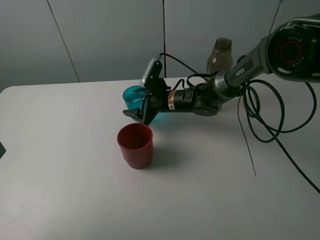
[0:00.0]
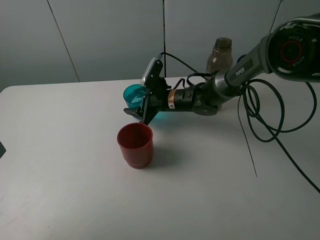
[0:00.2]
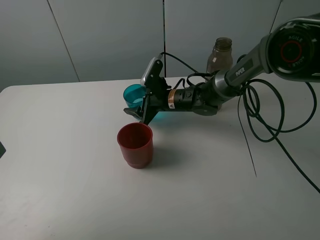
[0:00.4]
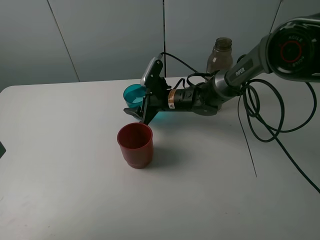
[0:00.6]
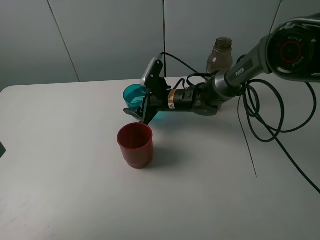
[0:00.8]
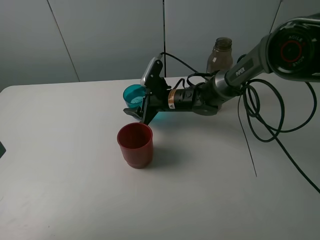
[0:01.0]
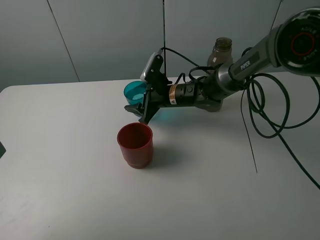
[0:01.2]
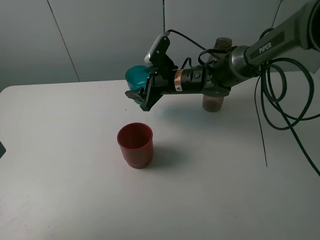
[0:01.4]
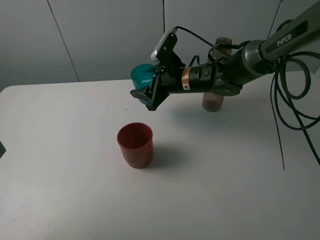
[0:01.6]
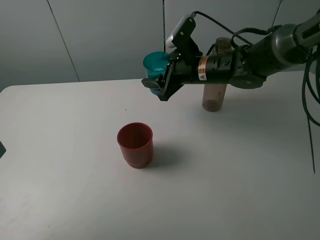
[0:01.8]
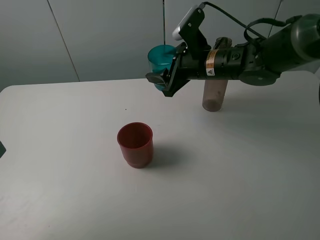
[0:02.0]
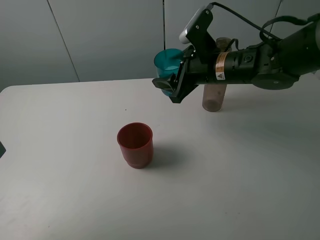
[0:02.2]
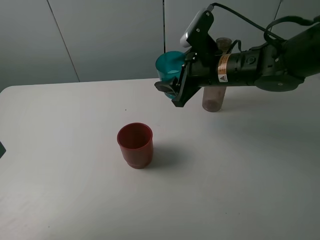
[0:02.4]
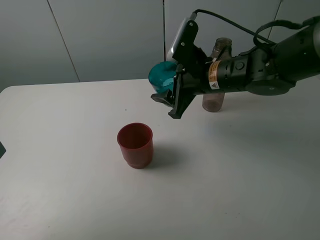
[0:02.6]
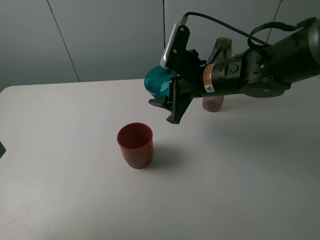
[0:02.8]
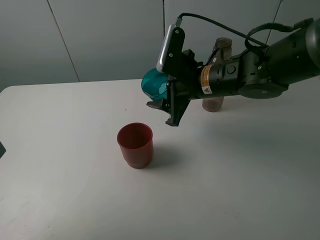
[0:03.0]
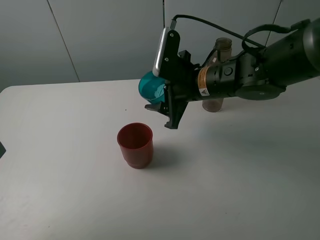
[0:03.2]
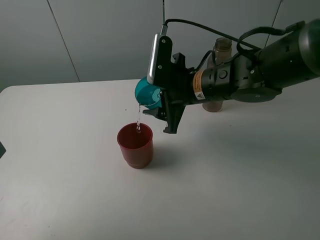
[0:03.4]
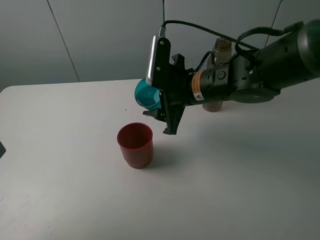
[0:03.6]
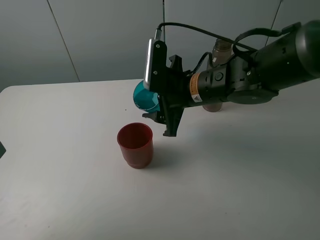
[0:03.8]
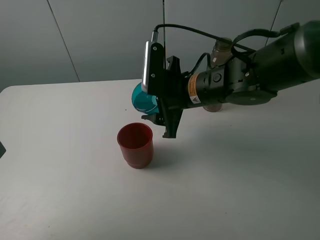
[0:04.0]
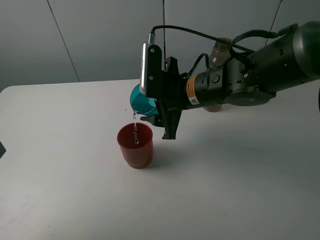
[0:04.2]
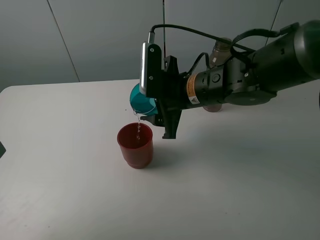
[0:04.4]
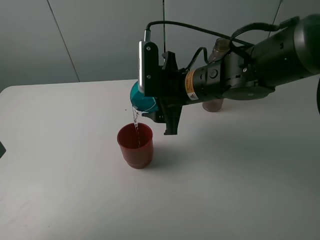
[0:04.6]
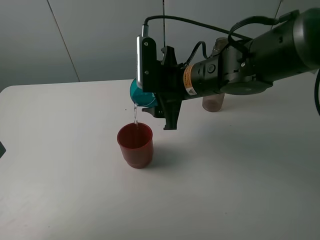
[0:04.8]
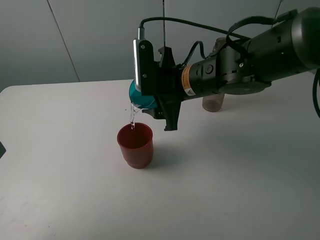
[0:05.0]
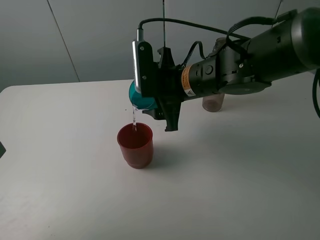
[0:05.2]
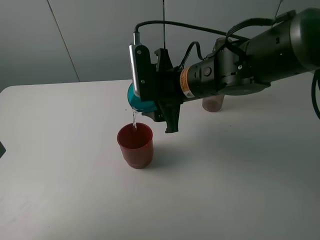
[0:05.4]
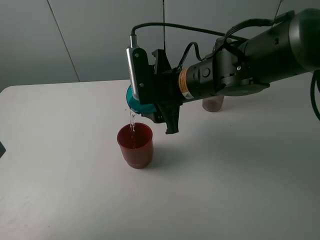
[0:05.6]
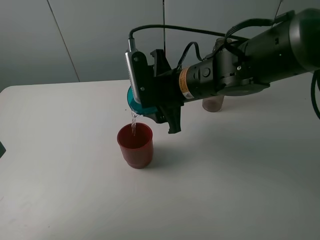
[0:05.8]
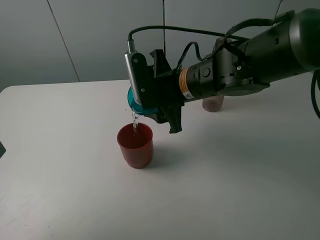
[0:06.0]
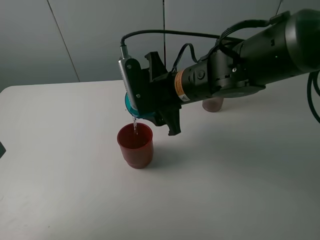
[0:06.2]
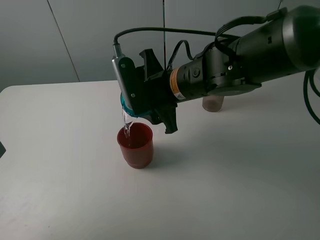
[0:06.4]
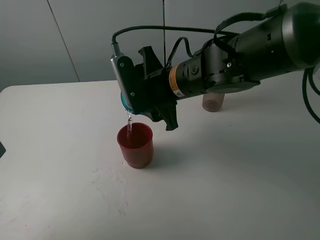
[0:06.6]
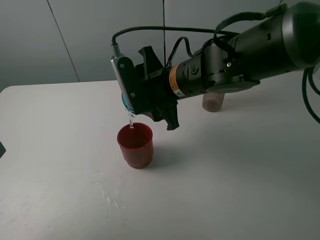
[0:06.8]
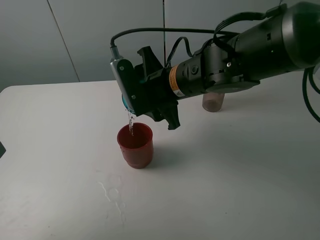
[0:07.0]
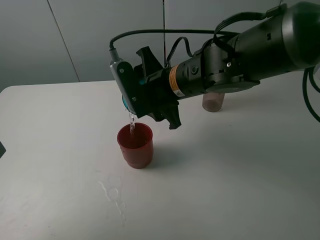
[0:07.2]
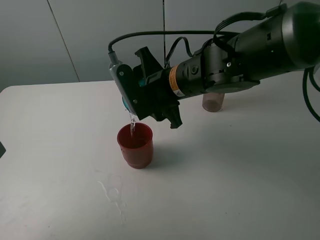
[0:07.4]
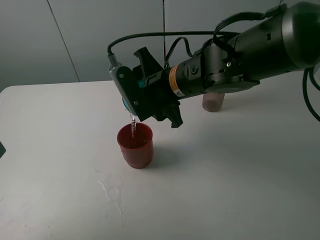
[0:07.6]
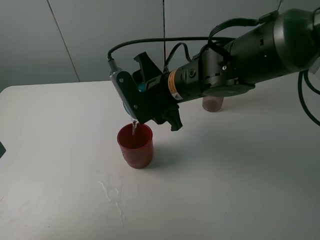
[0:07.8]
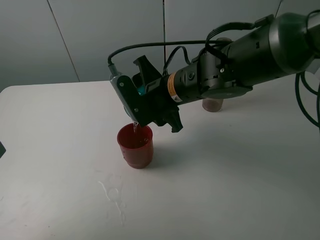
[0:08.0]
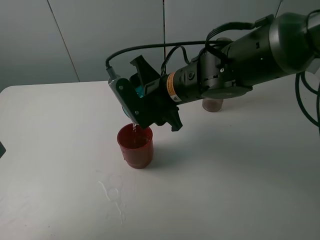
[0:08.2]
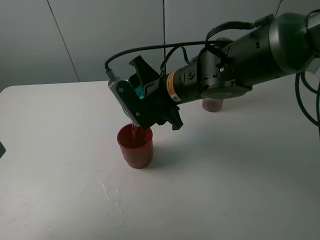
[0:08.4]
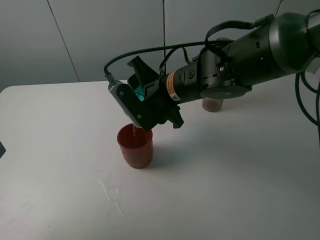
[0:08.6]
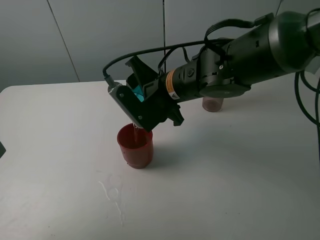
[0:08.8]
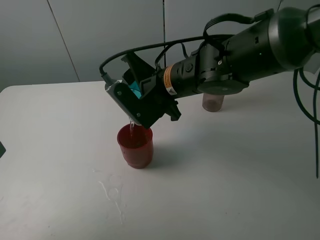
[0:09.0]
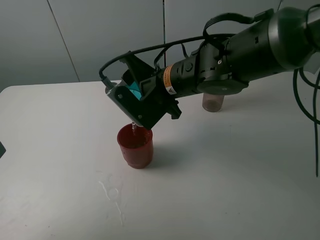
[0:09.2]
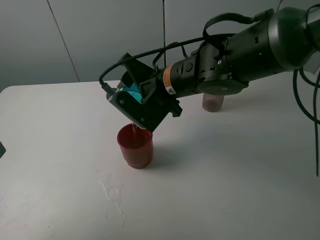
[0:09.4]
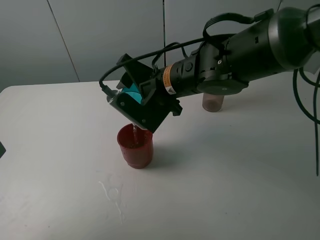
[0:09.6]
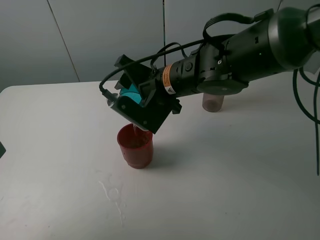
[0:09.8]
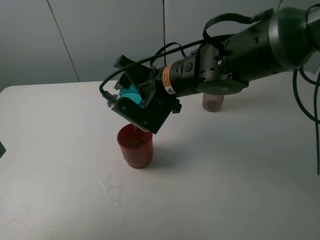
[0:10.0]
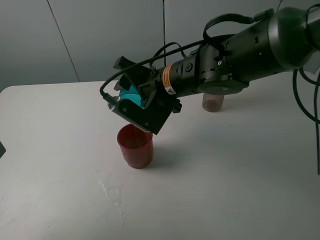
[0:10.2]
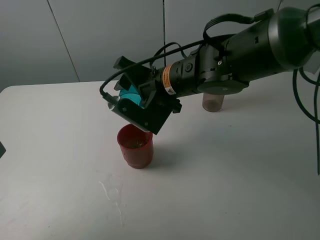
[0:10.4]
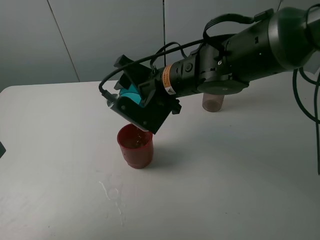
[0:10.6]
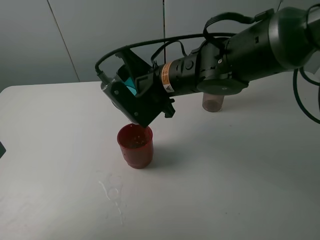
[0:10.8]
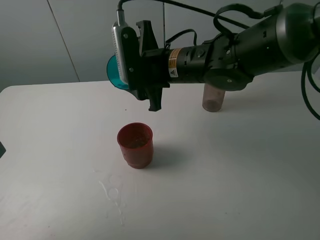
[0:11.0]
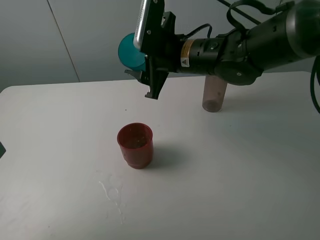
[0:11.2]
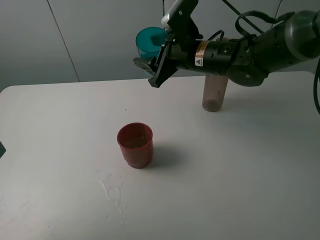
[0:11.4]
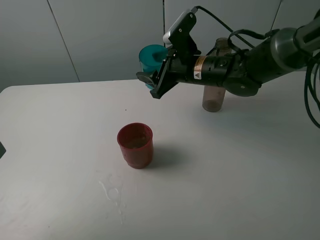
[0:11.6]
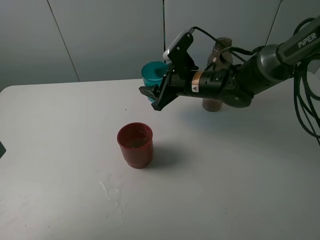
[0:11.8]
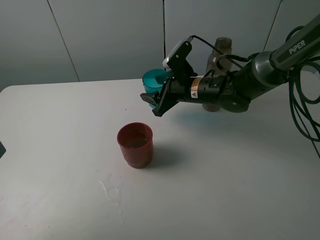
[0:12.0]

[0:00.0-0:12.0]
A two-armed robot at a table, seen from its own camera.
Task of the whole recording: pick up the bottle and pour water into the cup, then pick up the cup containing water and pour it into another cup.
Step, 0.2 to 10.8 s: Pour water from blue cup to red cup with the right gripper.
0.0 to 1.6 s: The right gripper heads upward, covering approximately 10 cm.
1.6 to 3.0 s: The right gripper travels backward by approximately 10 cm.
3.0 to 4.4 s: There are only small adjustments of the grippers.
4.4 to 6.0 s: The grippers move only a little.
6.0 to 7.6 s: The grippers move only a little.
7.6 to 9.0 s: There are only small adjustments of the grippers.
9.0 to 10.4 s: The grippers make only small movements.
10.4 to 12.0 s: The right gripper moves downward, forward and to the right, roughly 10 cm.

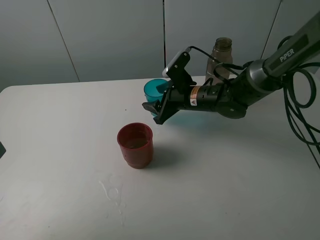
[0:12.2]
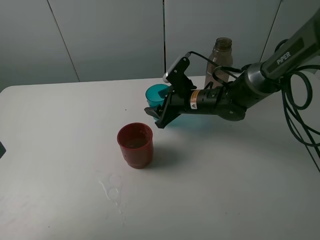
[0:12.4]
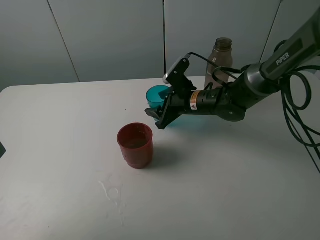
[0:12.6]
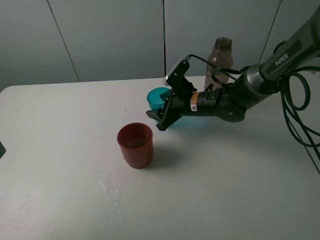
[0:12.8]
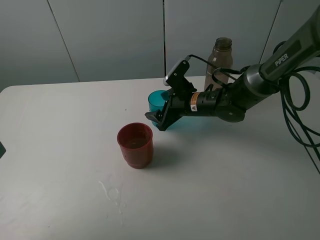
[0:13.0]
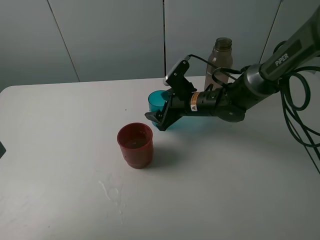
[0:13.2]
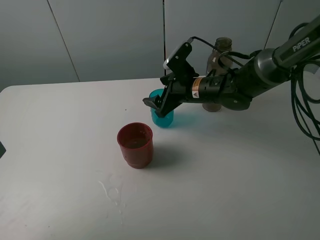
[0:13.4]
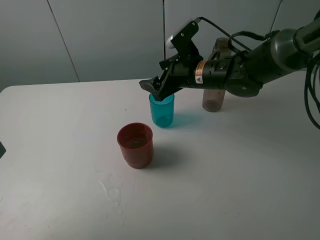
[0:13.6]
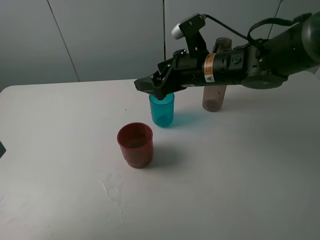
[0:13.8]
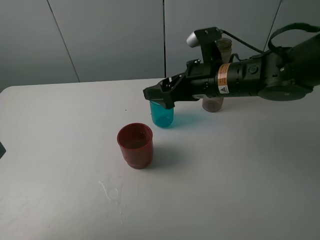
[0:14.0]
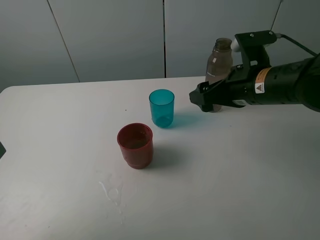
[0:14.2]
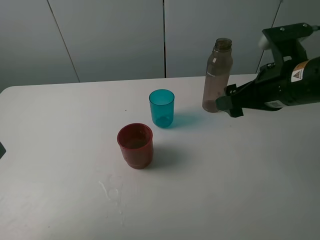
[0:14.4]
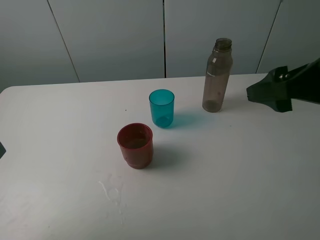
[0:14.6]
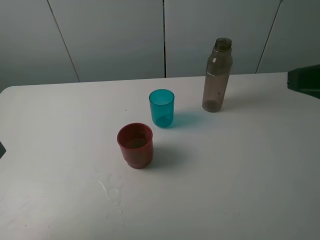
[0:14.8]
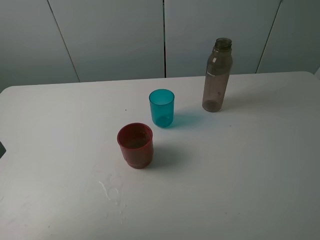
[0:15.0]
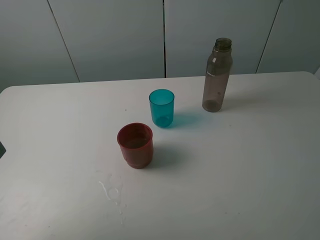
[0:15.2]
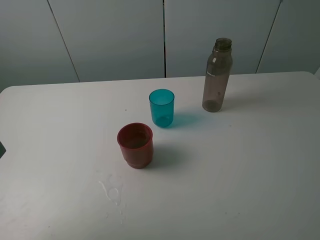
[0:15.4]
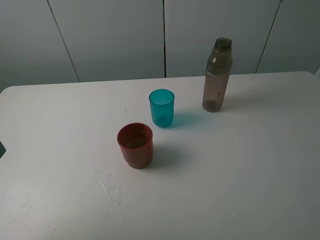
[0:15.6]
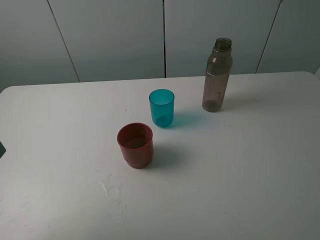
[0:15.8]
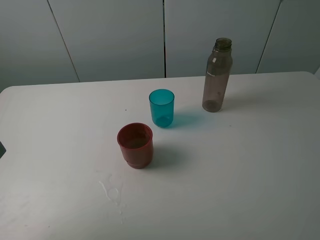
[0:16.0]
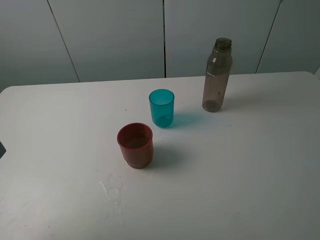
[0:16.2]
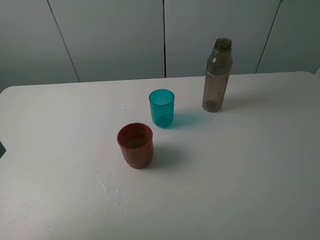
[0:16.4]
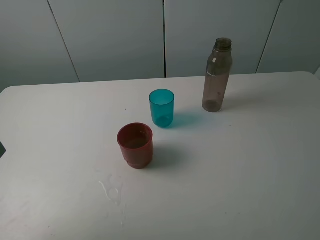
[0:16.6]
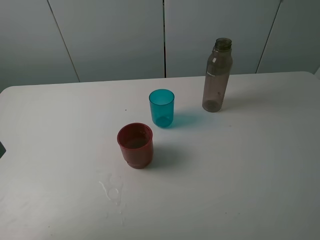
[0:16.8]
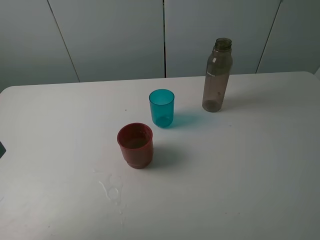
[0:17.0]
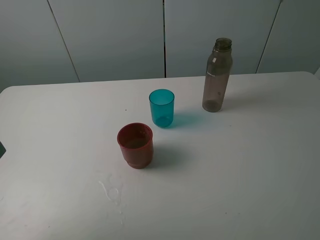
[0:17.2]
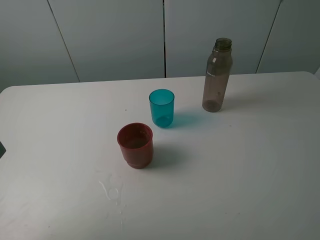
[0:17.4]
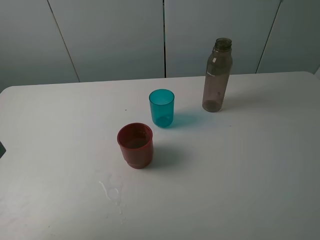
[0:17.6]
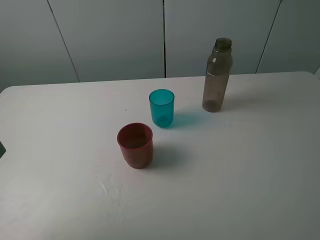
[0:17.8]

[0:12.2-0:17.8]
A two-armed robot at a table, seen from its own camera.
Task of the whole recording: pick up the bottle and pour water into the cup, then pick up the cup containing water and pour it into another cup.
12.2 to 13.6 s: The right gripper moves upward, roughly 5 cm, and opens its fingers.
13.6 to 15.0 s: The right gripper shifts roughly 40 cm backward, to the right and upward, and opens.

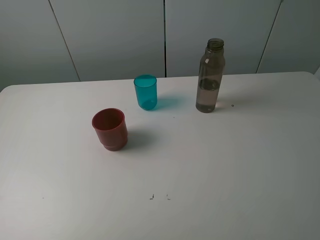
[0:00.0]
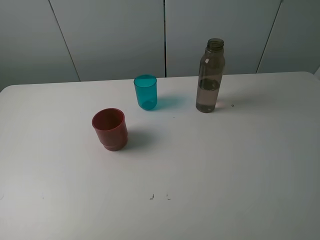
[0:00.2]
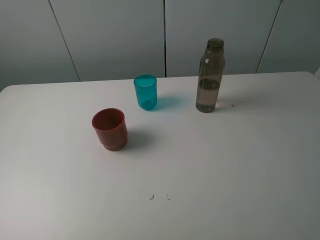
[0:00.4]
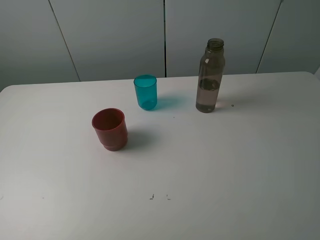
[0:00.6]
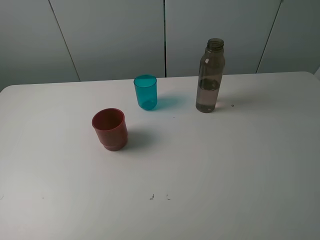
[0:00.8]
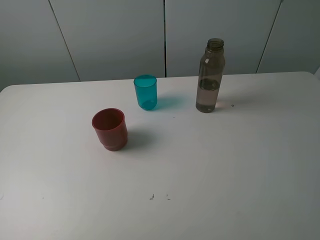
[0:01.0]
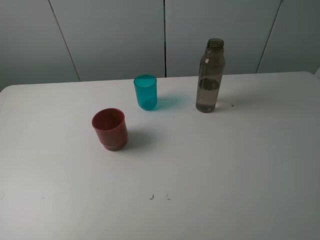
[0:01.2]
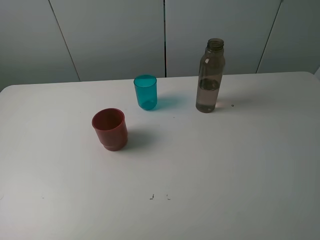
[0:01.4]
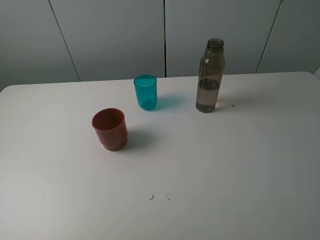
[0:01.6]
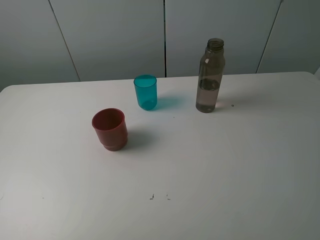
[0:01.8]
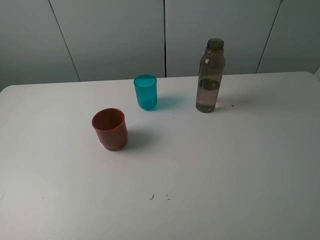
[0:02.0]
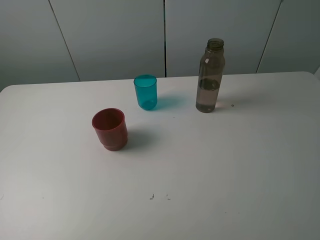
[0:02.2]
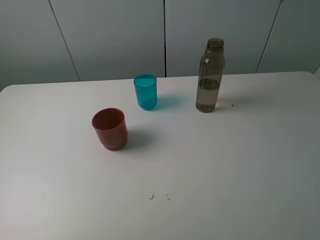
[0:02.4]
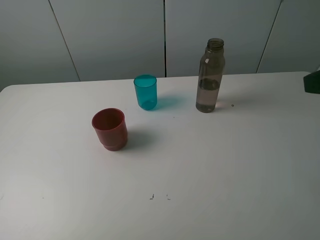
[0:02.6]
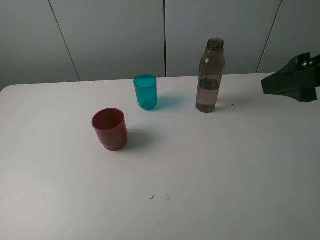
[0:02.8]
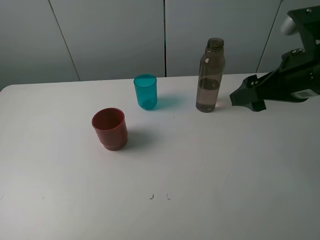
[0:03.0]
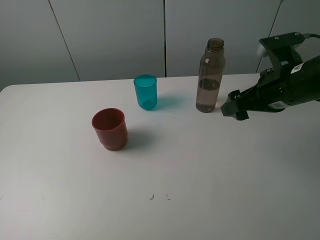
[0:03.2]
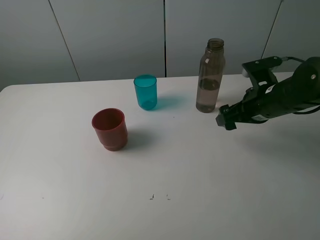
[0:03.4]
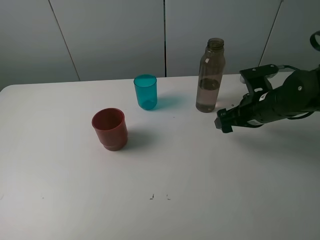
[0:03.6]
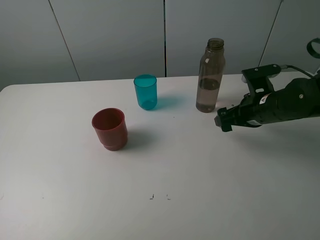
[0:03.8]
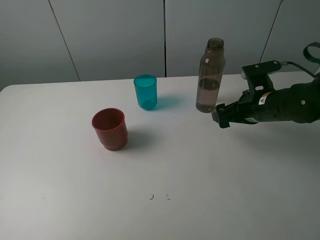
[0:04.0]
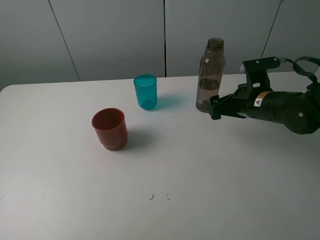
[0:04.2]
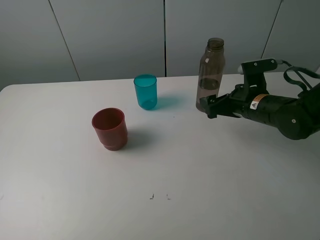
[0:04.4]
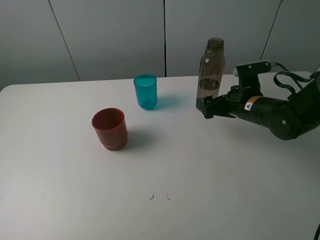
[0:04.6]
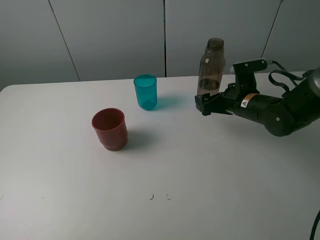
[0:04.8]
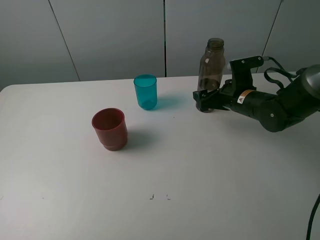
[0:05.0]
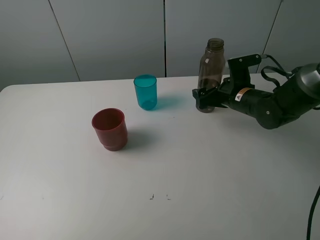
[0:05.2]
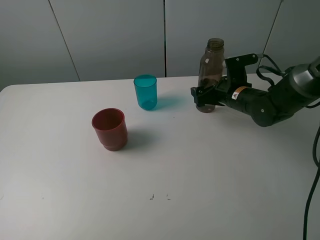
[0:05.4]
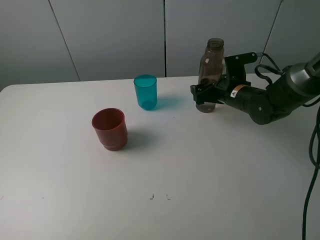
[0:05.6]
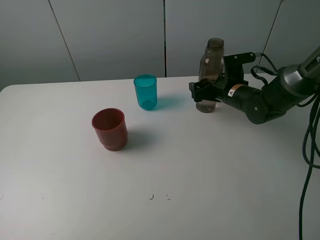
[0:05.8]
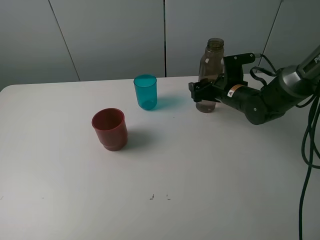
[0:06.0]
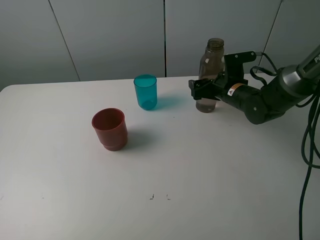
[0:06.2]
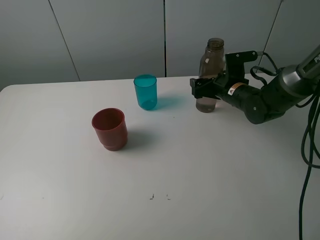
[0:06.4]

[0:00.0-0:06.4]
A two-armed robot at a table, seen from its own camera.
Task of the whole recording: pick up the bottle and pour water into the cup, then pick up the cup containing water and pour it into another cup.
0.0 to 1.6 s: The two grippers keep their place.
1.6 to 3.2 s: The right gripper moves forward, about 25 cm.
3.2 to 4.8 s: The right gripper shifts some 10 cm downward and forward.
4.8 to 6.4 s: The right gripper heads forward, covering about 5 cm.
